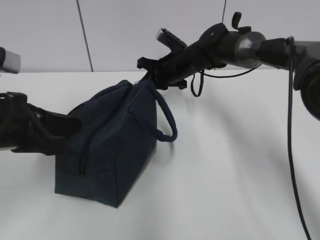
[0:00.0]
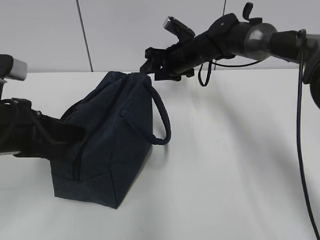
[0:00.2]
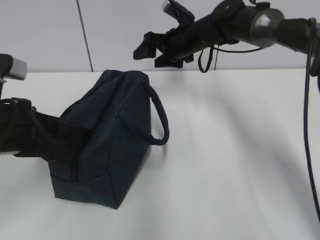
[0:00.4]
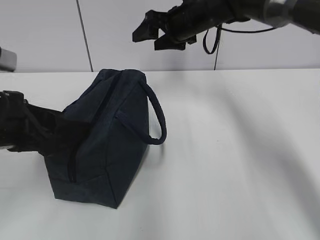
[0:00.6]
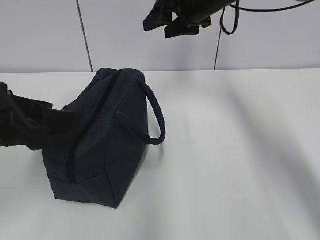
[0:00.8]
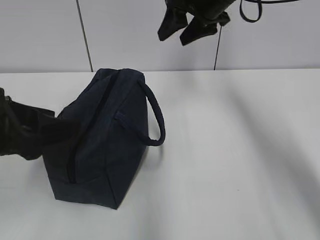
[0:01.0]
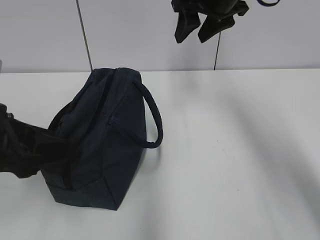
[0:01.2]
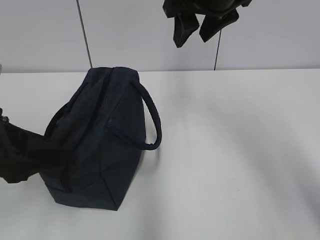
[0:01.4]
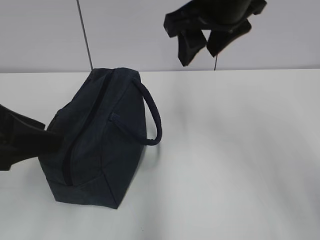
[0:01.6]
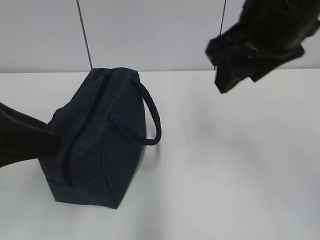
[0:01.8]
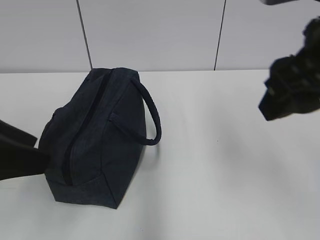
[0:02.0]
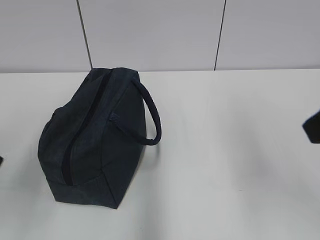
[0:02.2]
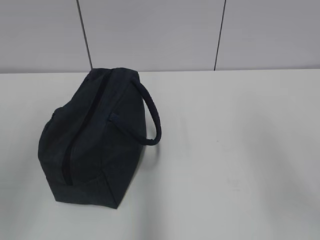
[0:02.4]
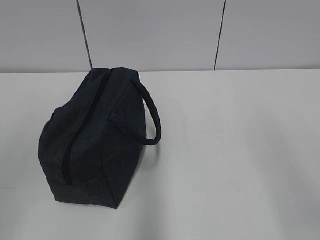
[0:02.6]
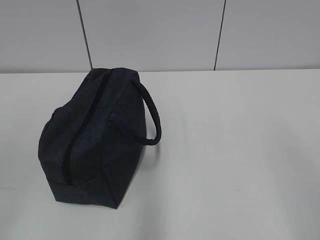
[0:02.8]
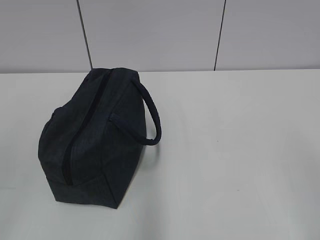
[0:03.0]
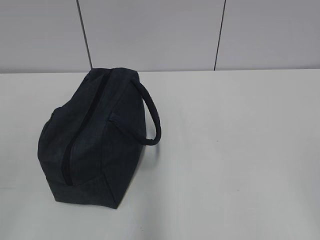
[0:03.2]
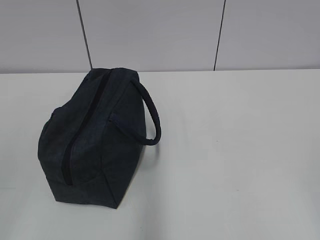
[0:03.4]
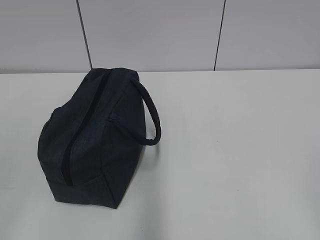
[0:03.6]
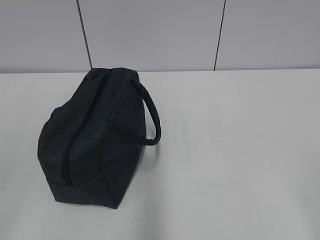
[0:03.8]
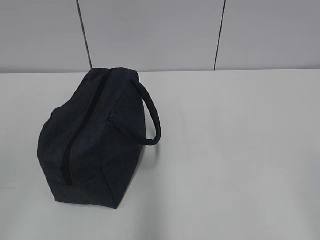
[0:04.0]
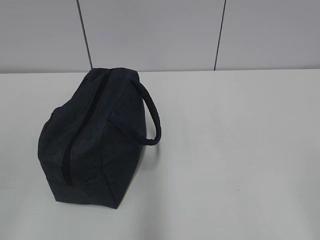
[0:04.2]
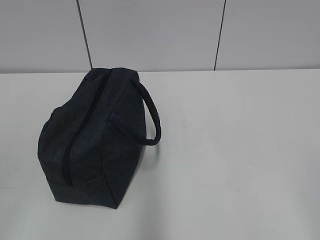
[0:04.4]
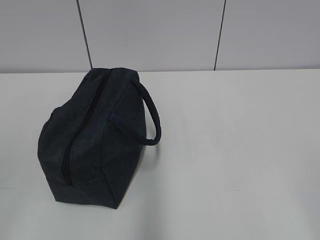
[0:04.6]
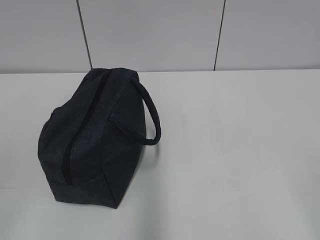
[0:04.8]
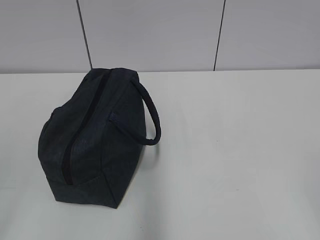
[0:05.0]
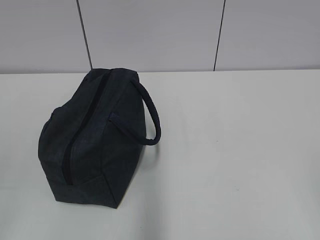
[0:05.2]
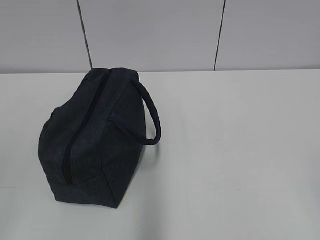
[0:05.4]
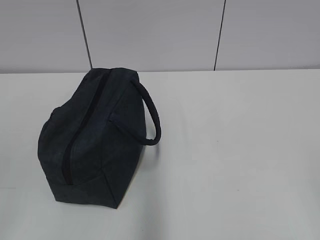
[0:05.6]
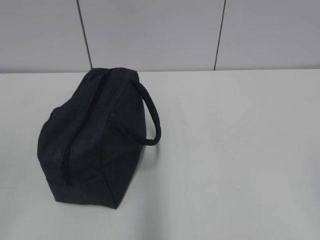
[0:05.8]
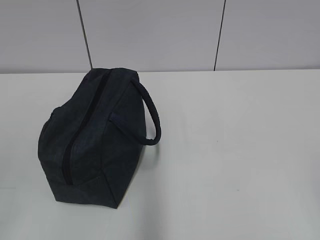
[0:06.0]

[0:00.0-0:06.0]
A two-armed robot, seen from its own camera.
Step, 0:00.2 to 0:00.8: Grab the lunch bag with your left hand.
0:00.0 to 0:01.6: The right gripper heads upward and backward, covering about 30 cm, and opens. The left gripper travels upward by some 5 cm, and opens its fingers.
0:01.6 to 0:03.0: The left gripper is displaced backward and to the left by some 20 cm, while the right gripper is displaced backward and to the right by approximately 35 cm.
